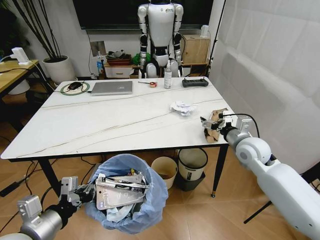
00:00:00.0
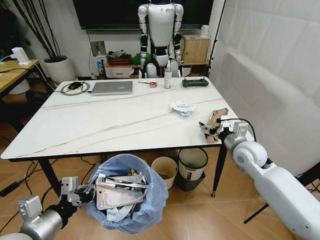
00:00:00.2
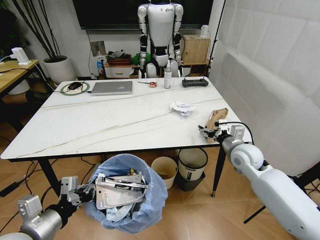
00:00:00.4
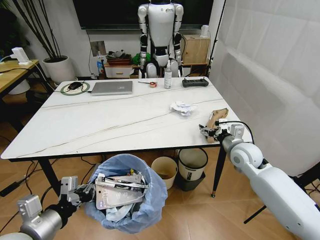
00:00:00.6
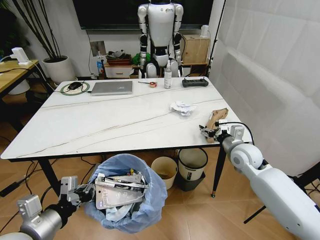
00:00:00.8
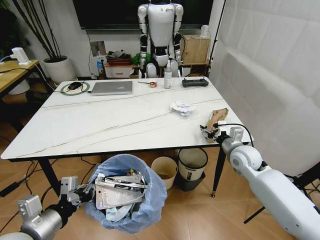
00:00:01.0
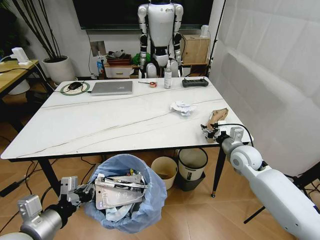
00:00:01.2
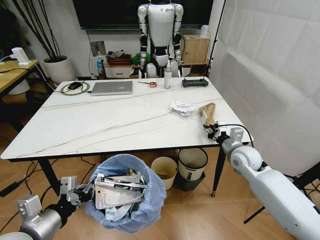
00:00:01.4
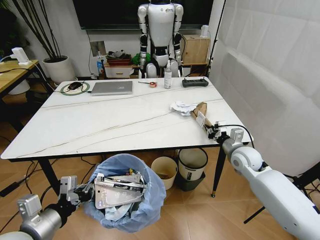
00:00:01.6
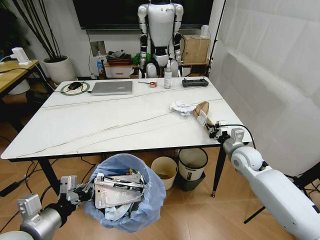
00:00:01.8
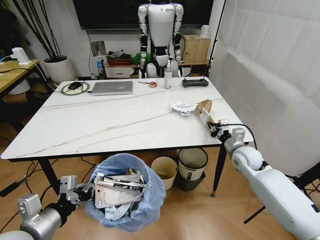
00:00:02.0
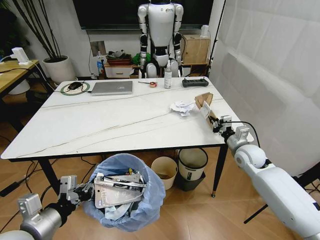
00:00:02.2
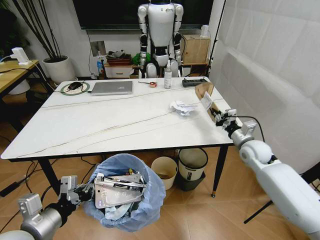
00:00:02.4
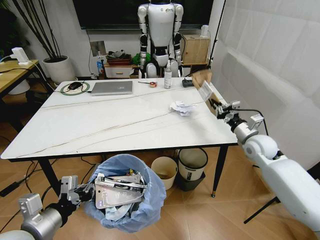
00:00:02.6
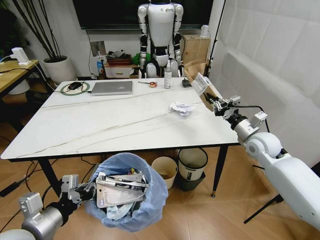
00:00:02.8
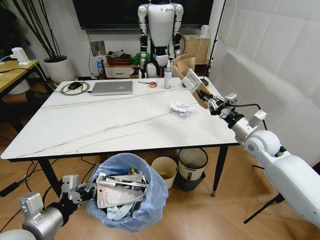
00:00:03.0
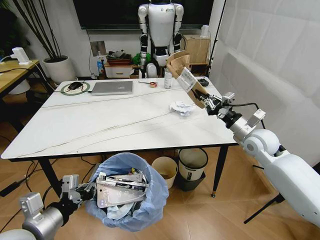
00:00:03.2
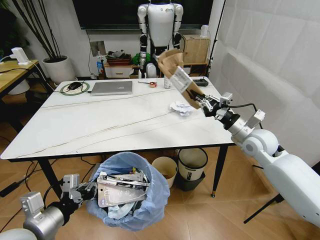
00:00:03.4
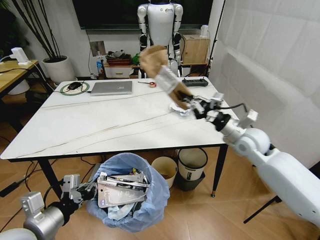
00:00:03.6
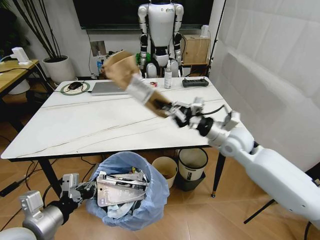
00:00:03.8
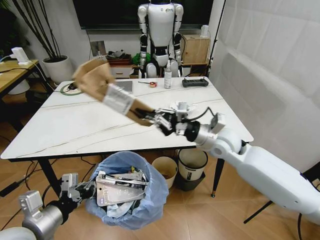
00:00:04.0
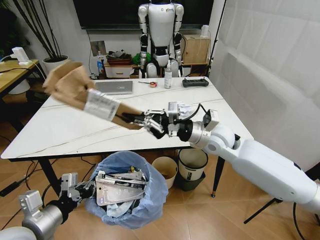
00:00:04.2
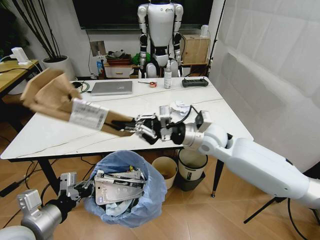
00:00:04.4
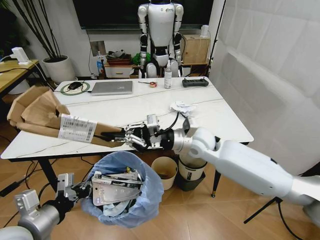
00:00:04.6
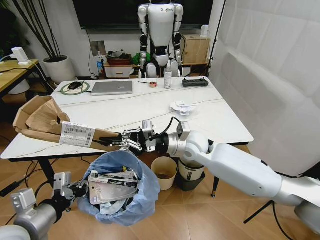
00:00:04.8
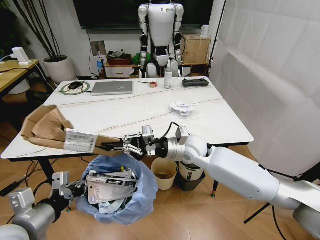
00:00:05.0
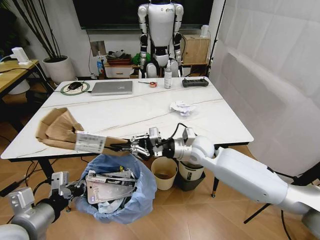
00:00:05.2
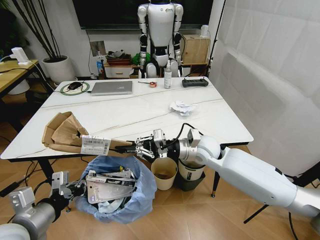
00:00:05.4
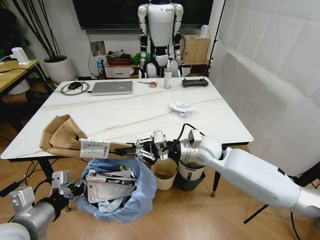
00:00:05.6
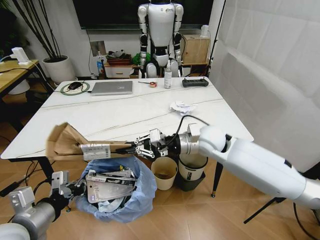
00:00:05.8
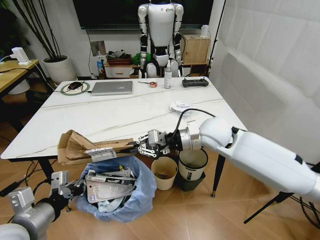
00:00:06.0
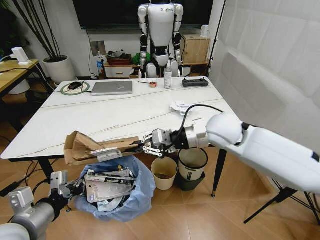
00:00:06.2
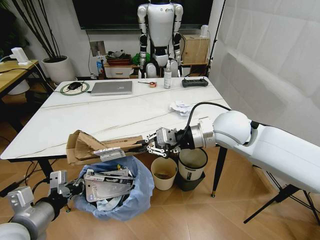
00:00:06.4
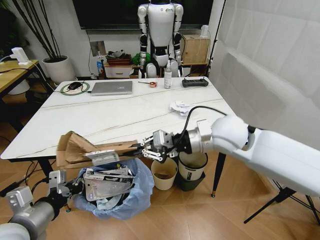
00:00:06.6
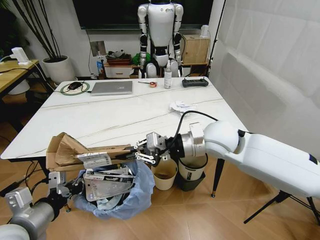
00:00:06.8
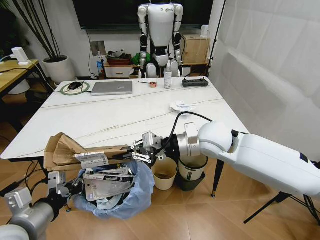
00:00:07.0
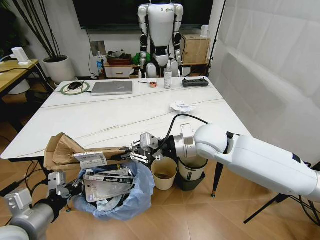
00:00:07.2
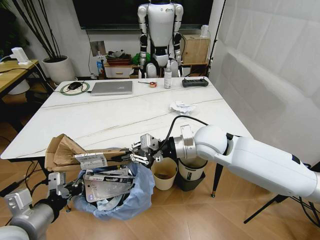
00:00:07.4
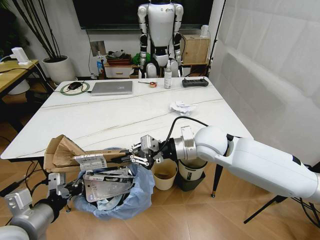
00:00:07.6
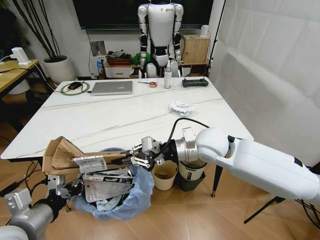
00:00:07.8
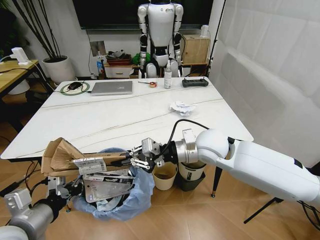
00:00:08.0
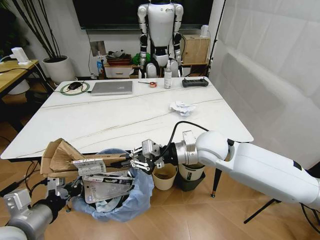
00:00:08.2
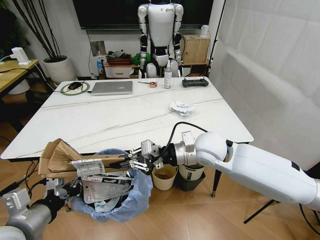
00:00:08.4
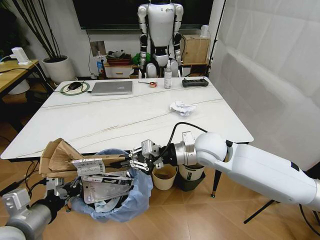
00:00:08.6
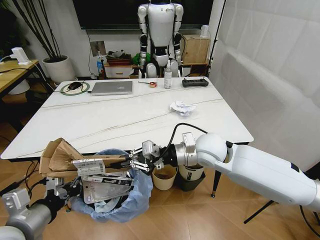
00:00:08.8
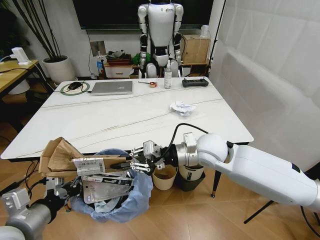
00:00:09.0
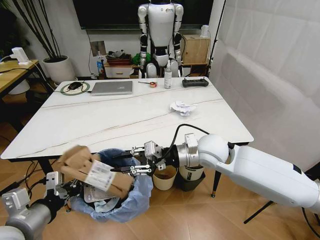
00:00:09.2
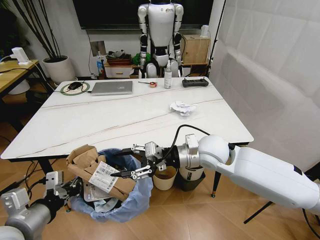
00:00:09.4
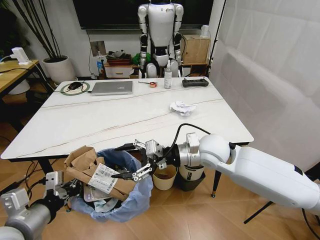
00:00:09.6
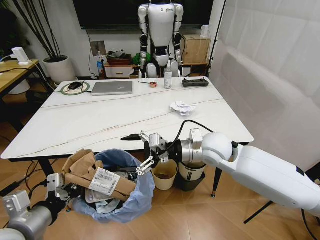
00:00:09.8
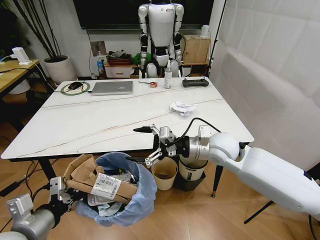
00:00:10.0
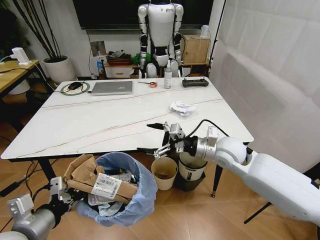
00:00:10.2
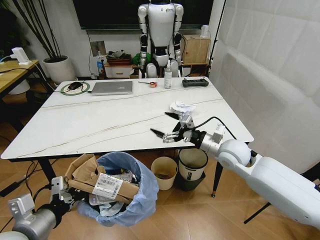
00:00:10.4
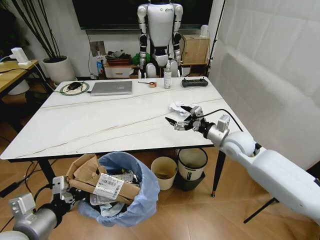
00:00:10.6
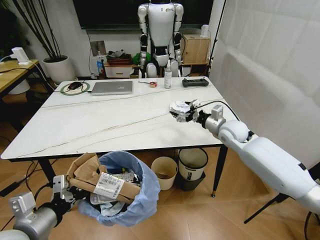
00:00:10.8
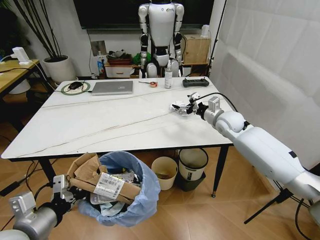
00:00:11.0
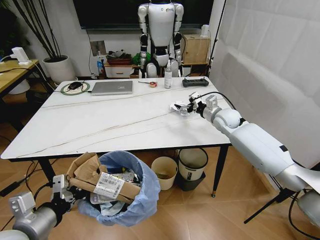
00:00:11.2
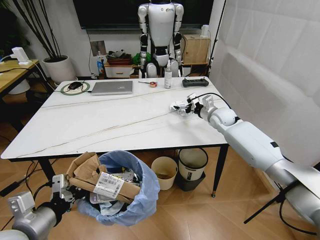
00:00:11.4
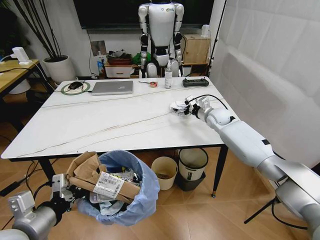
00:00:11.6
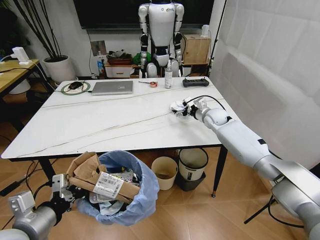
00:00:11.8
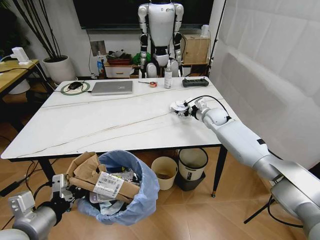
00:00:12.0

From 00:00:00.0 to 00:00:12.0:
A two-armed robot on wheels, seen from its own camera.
Task of the whole recording: Pick up the trash bin and place the trash from the table into it.
From 00:00:00.0 to 00:00:01.6: The right gripper is displaced downward by about 5 cm, and closes up.
From 00:00:01.6 to 00:00:03.0: The right gripper heads upward, covering approximately 5 cm.
From 00:00:03.0 to 00:00:04.4: The right gripper goes approximately 20 cm to the left.
From 00:00:04.4 to 00:00:06.0: The right gripper reaches roughly 5 cm downward, then returns.
From 00:00:06.0 to 00:00:09.0: The grippers make only small movements.
From 00:00:09.0 to 00:00:10.4: The right gripper heads to the right, covering some 10 cm, and opens its fingers.
From 00:00:10.4 to 00:00:12.0: The right gripper shifts roughly 20 cm forward.

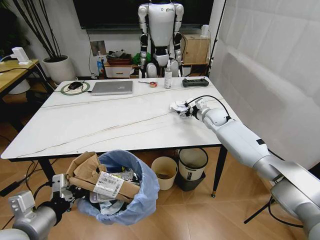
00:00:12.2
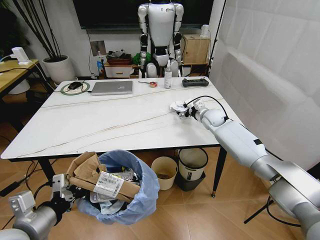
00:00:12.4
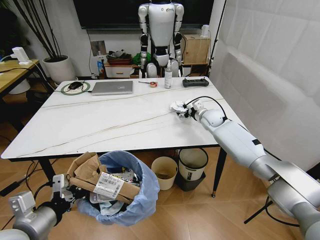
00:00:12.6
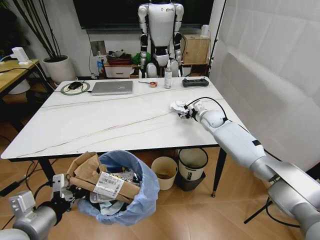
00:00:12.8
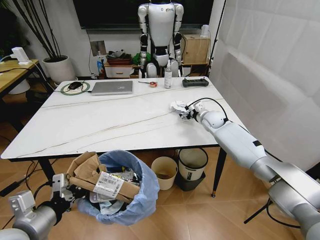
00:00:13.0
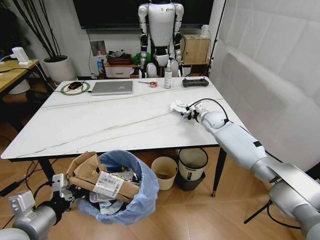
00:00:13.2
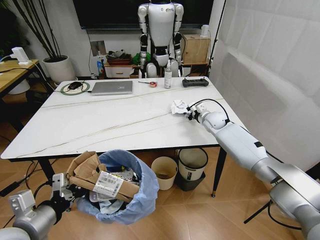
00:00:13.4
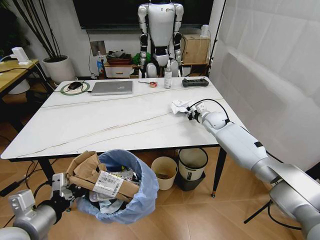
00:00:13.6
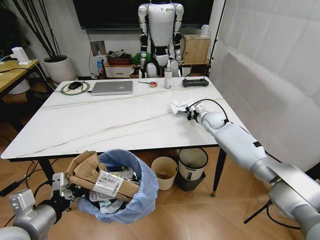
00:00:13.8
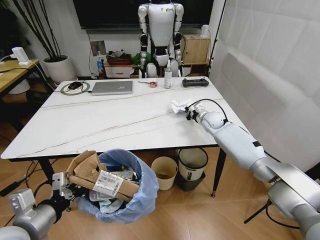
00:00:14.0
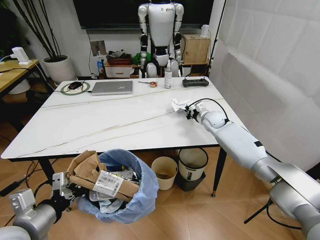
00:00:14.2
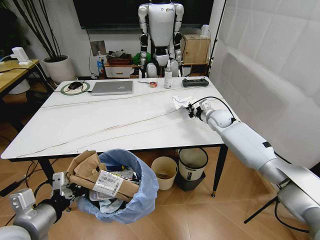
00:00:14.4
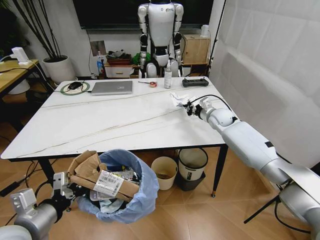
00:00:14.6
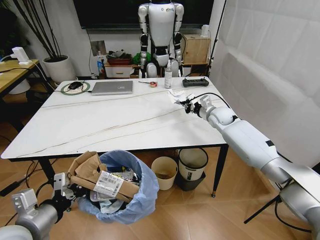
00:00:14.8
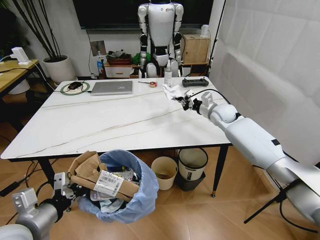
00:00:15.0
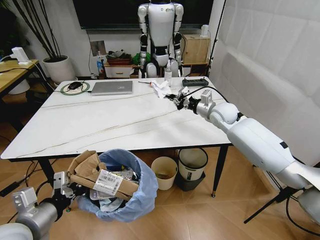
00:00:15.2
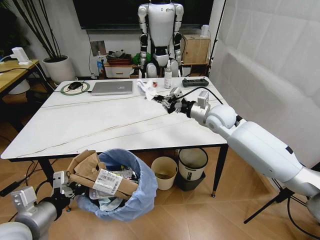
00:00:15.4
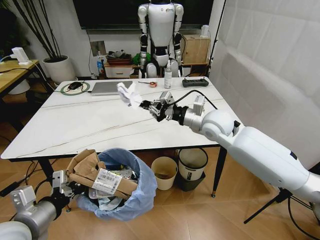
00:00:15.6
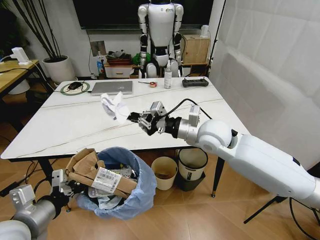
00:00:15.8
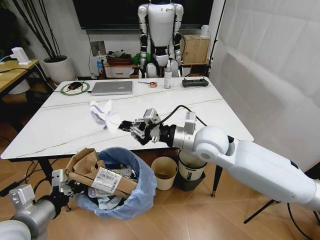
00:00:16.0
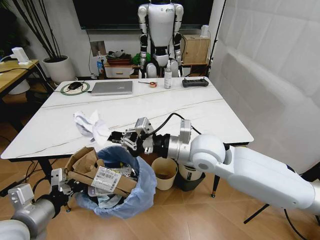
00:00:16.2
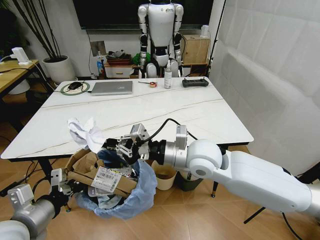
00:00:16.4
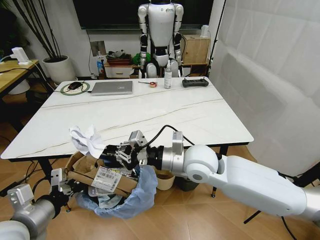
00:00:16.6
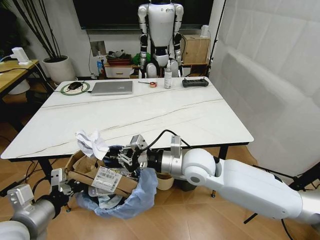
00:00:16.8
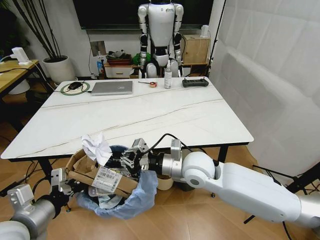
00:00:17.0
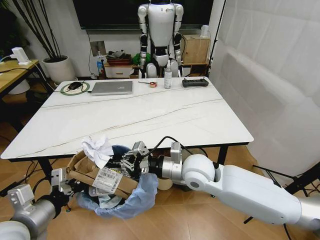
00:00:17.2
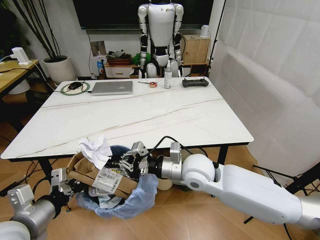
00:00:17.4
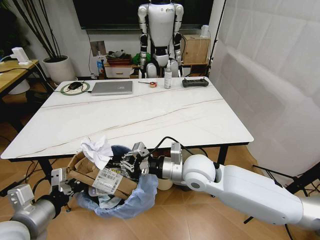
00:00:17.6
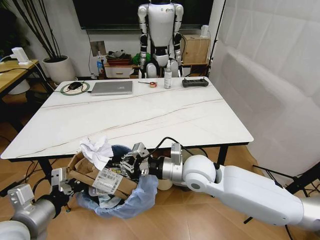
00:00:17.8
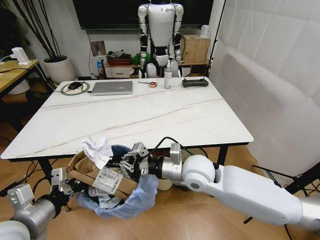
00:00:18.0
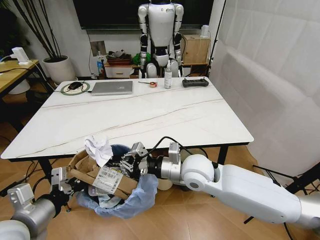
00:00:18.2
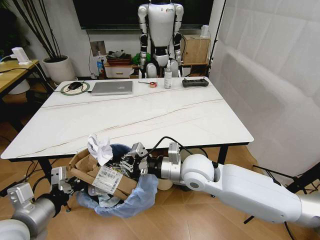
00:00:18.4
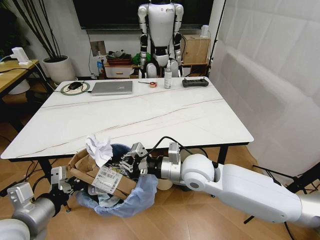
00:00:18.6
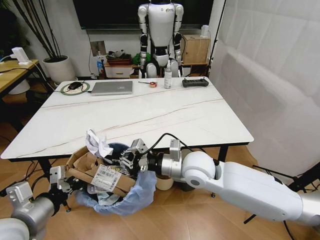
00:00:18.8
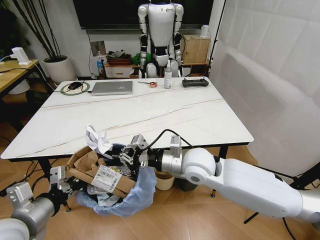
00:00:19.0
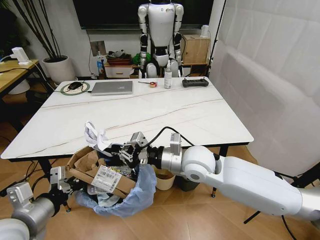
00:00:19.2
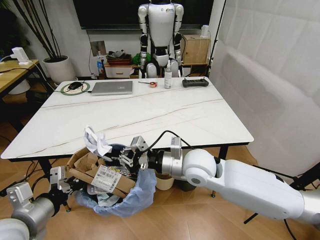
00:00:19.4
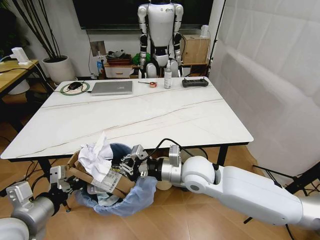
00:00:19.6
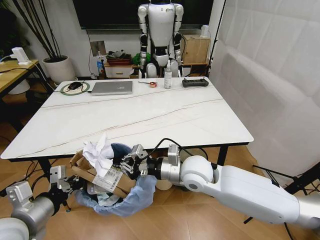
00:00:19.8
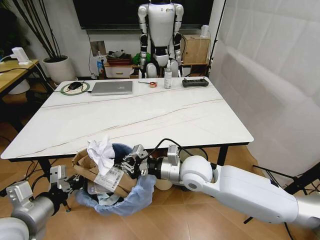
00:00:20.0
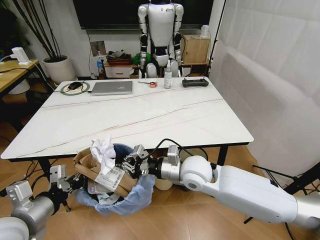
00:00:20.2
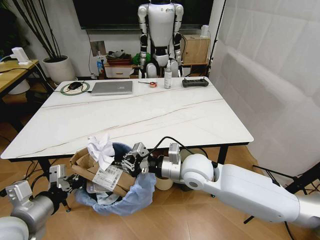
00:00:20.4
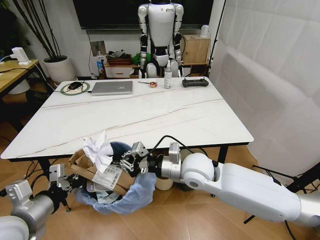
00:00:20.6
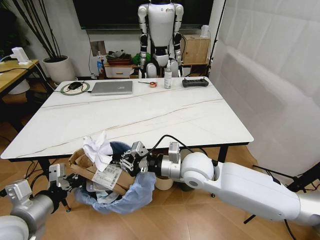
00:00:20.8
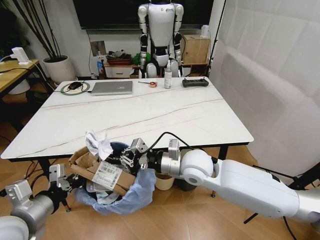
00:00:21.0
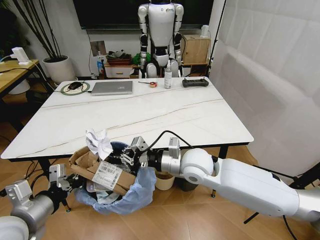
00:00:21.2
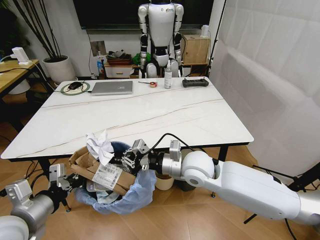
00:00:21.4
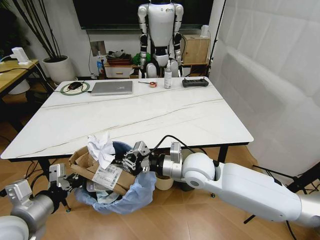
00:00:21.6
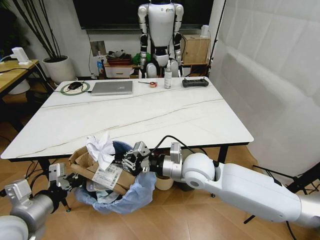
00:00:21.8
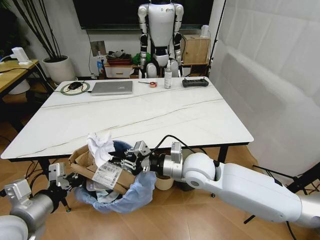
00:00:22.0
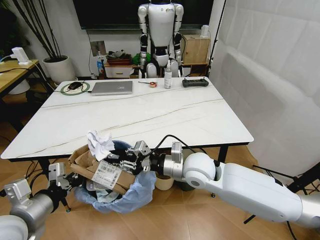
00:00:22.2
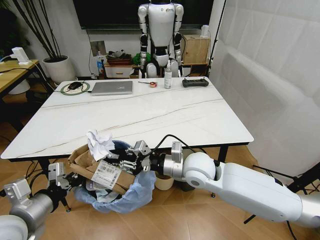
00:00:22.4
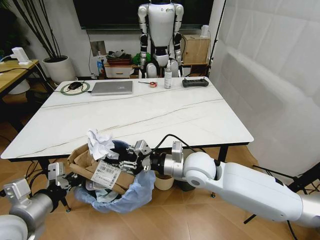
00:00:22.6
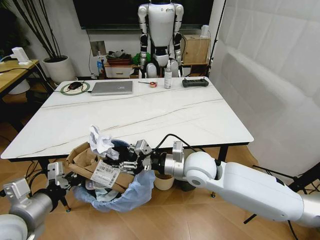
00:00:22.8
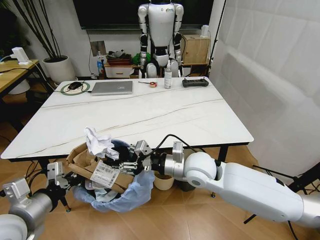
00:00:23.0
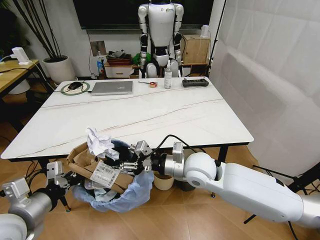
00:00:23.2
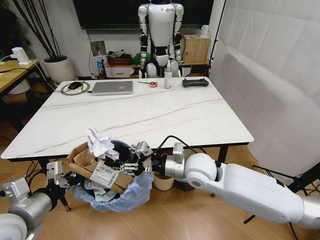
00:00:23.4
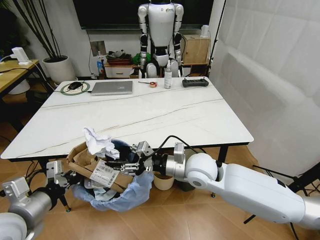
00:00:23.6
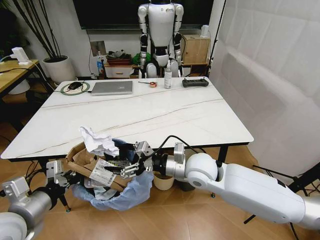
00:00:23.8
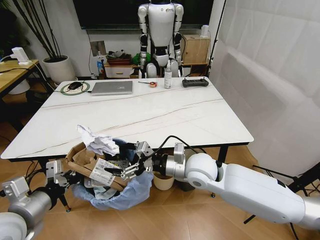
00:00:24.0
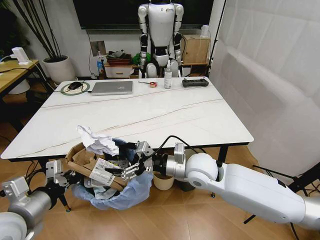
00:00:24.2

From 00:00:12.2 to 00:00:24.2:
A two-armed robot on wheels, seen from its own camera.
Task of the whole recording: Pick up the trash bin and place the trash from the table into it.
From 00:00:12.2 to 00:00:13.8: The right gripper closes.
From 00:00:13.8 to 00:00:15.2: The right gripper is displaced upward by about 10 cm.
From 00:00:15.2 to 00:00:16.6: The right gripper heads backward and to the left, covering approximately 25 cm.
From 00:00:16.6 to 00:00:19.8: The grippers move only a little.
From 00:00:19.8 to 00:00:21.2: The grippers make only small movements.
From 00:00:21.2 to 00:00:22.6: The right gripper opens.
From 00:00:22.6 to 00:00:24.2: The right gripper opens.
